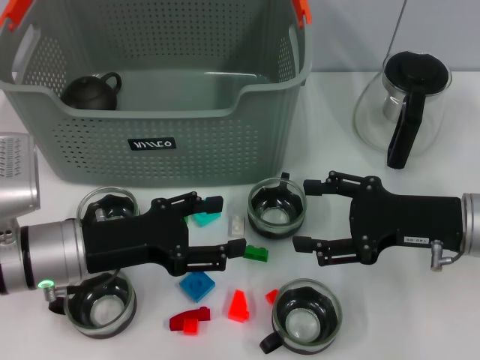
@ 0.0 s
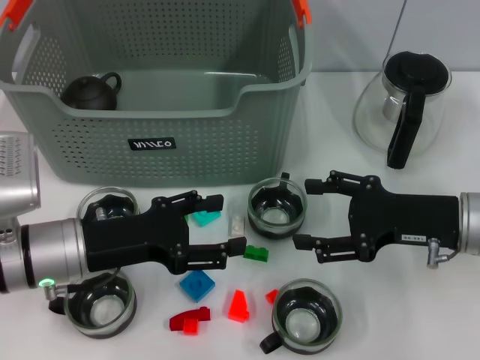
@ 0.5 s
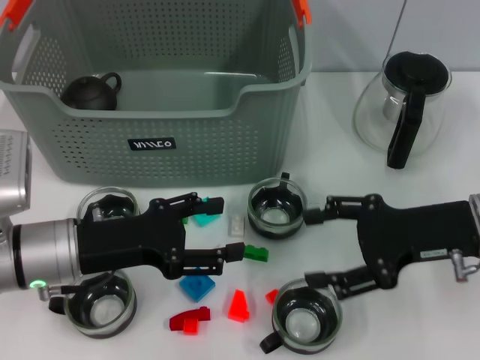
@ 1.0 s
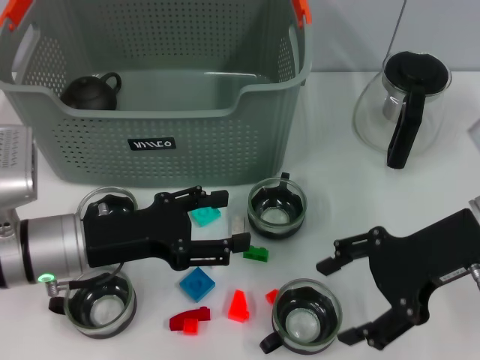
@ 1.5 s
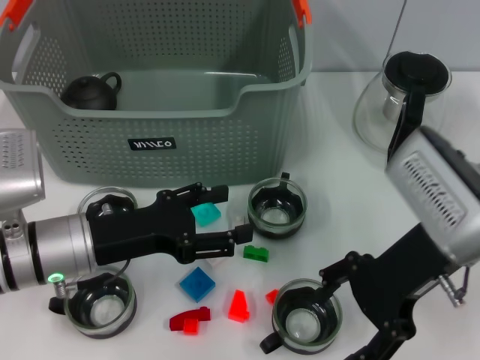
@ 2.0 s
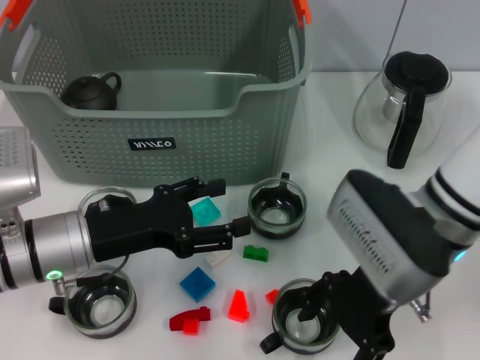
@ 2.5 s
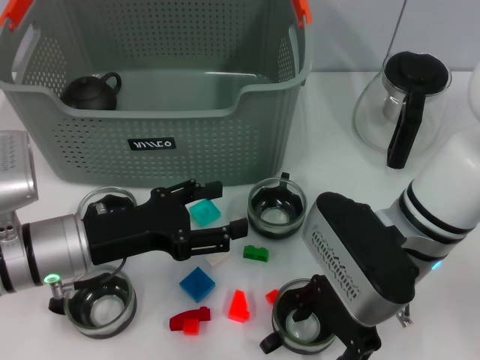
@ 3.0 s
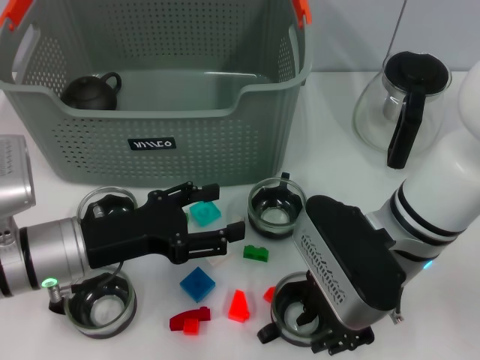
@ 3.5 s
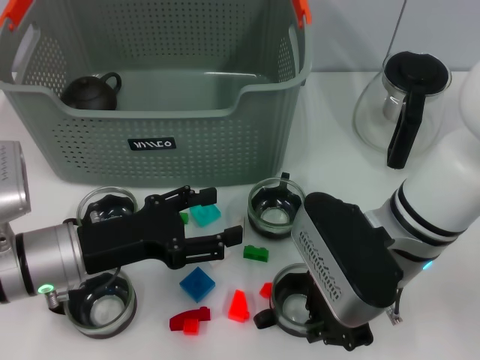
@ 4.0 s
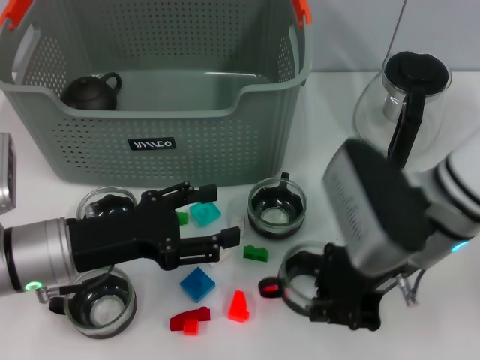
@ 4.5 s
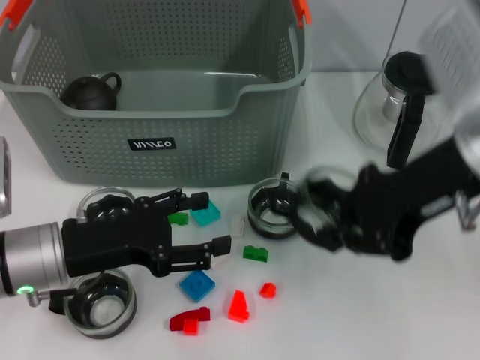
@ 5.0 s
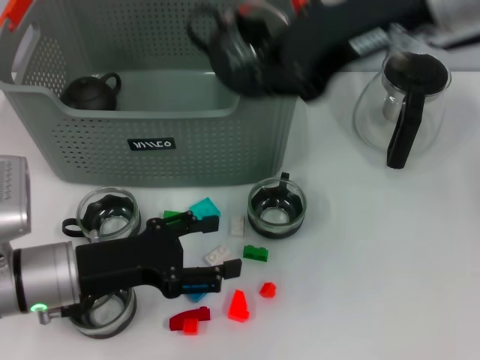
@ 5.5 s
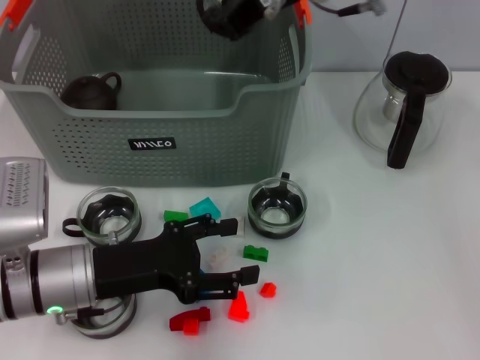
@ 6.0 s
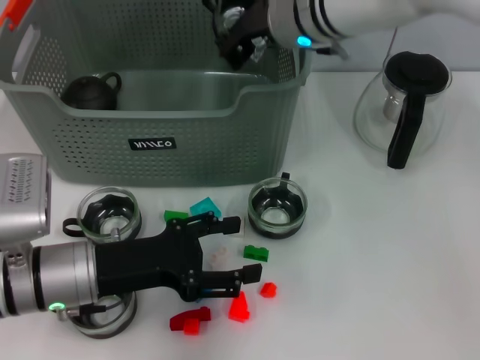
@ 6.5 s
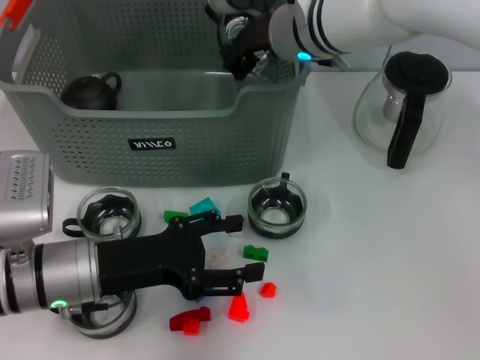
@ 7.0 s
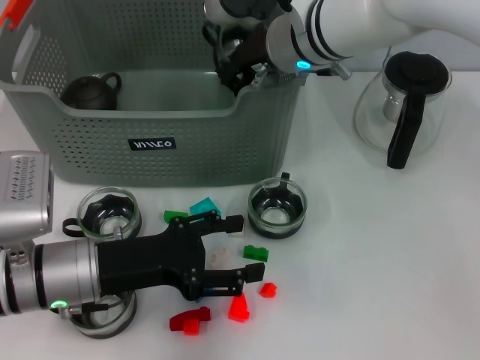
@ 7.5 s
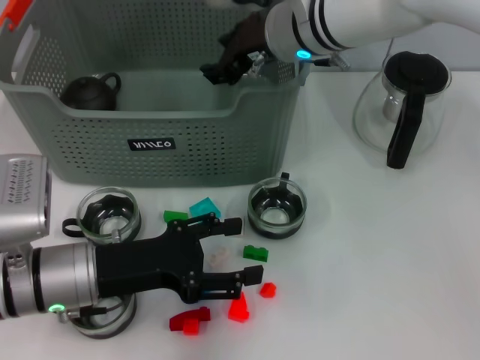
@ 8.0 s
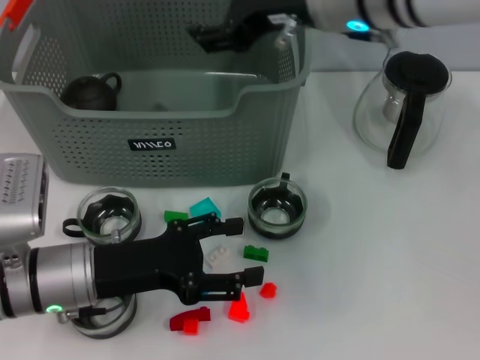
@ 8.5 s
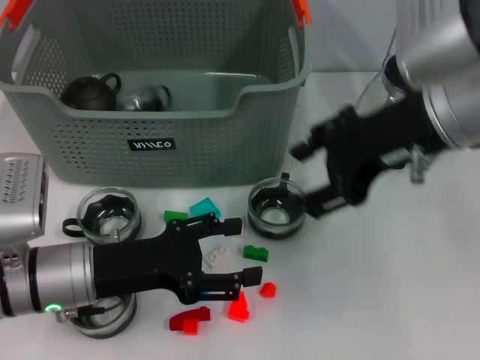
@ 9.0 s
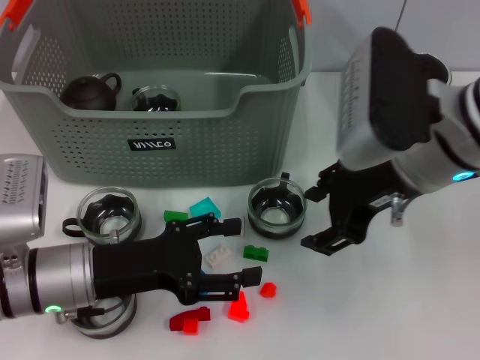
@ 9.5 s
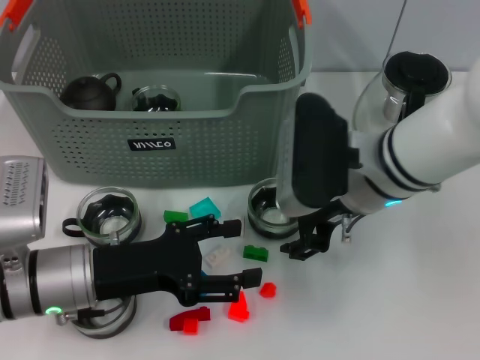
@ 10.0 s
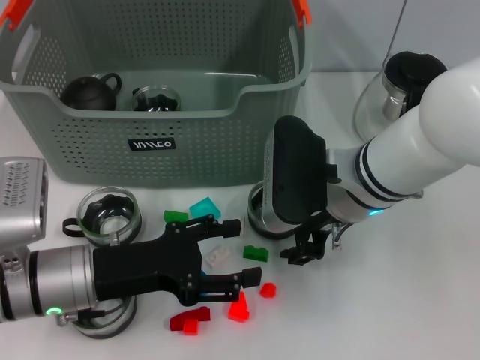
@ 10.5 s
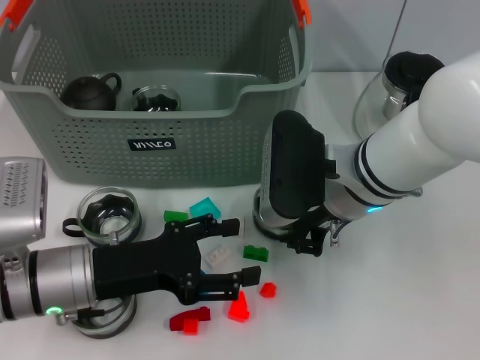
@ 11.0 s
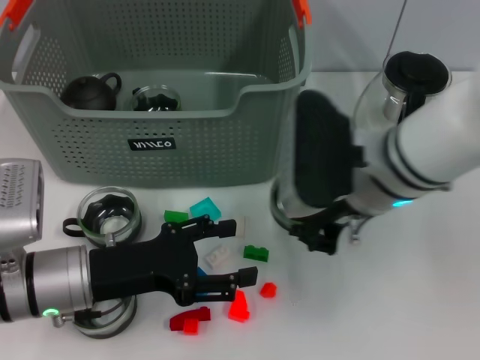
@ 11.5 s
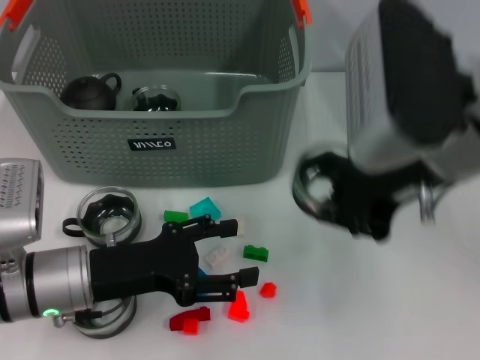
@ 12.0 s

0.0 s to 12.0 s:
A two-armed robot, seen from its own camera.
Task of the whole recording: pick up the teacup on the table and place it into the storage bin, pick up the block on the table and place it into the storage bin.
Step, 0.0 to 3.5 s: Grasp the cup with right gripper.
Step, 4.5 to 8.0 s: Place the cup in the storage box with right gripper.
Step, 8.5 to 11.0 s: Grasp the cup with right gripper.
0.0 to 2.0 s: The right gripper goes approximately 10 cm upward and to the left.
2.0 to 4.0 s: The right gripper travels to the left by some 5 cm, and closes.
4.0 to 6.0 s: The right gripper moves upward and forward, about 20 cm.
6.0 to 8.0 s: The right gripper goes roughly 5 cm downward, and opens its fingers.
8.0 to 10.0 s: The right gripper goes about 15 cm backward, to the right and downward, and opens its fingers.
10.0 to 12.0 s: The right gripper shifts about 10 cm upward, and closes.

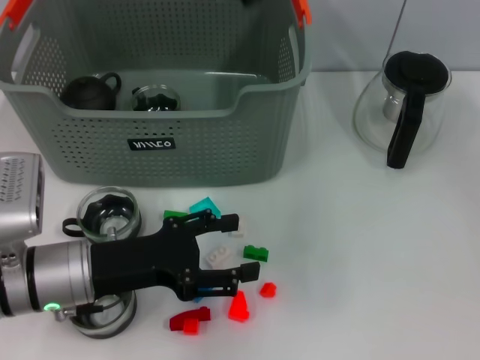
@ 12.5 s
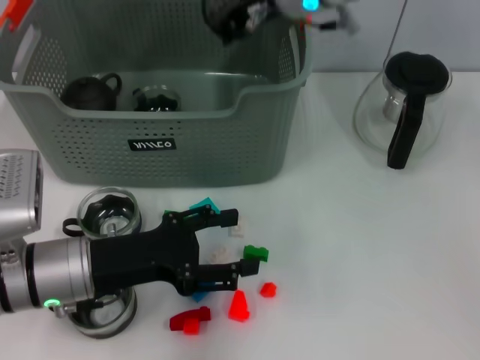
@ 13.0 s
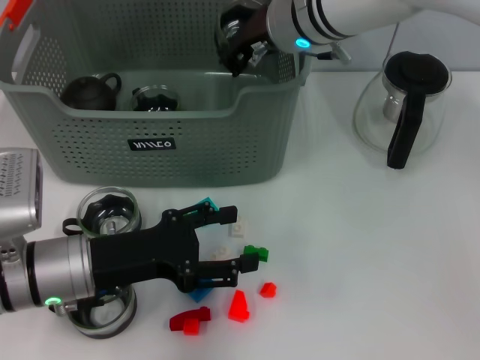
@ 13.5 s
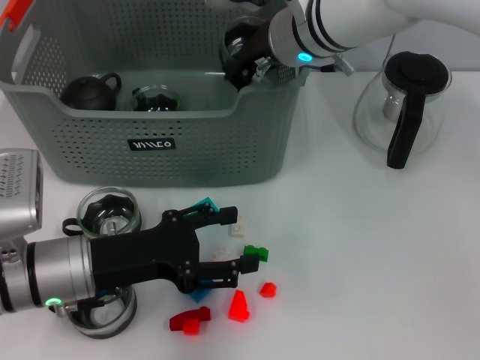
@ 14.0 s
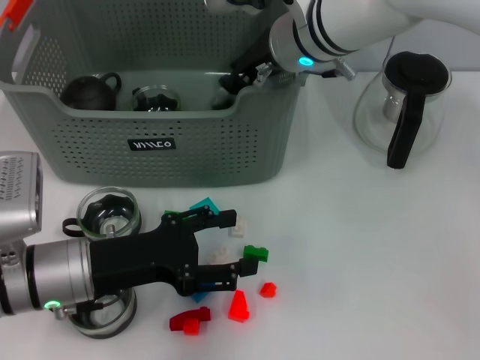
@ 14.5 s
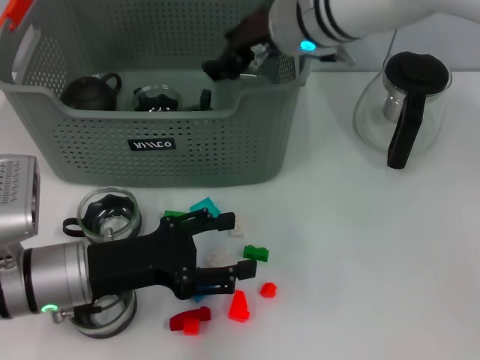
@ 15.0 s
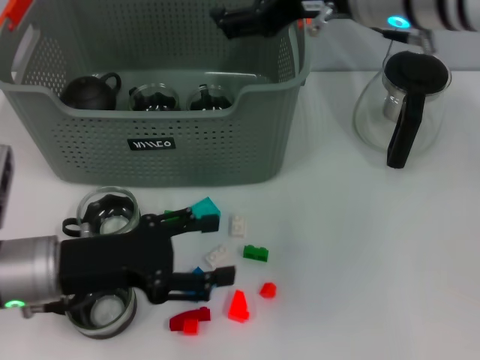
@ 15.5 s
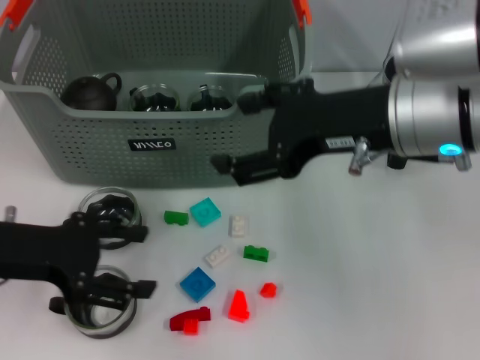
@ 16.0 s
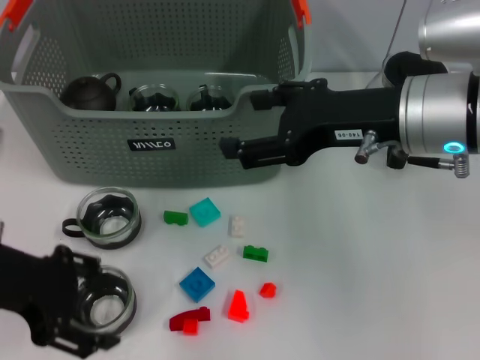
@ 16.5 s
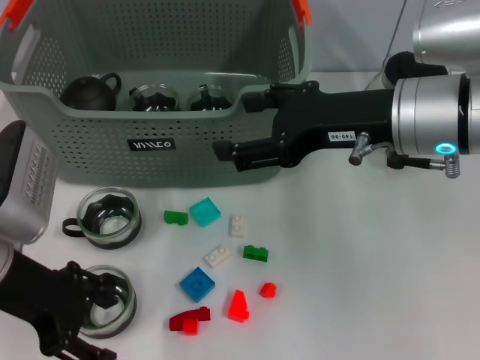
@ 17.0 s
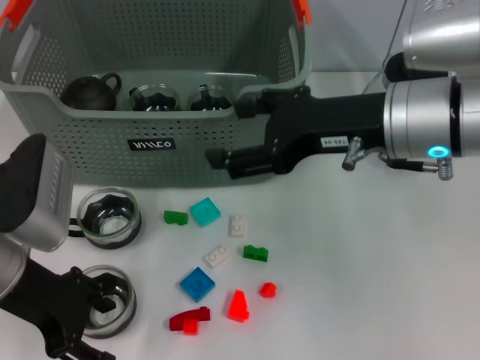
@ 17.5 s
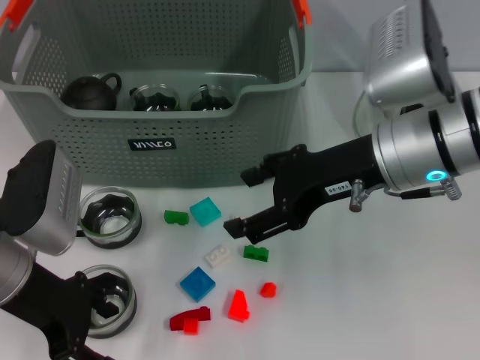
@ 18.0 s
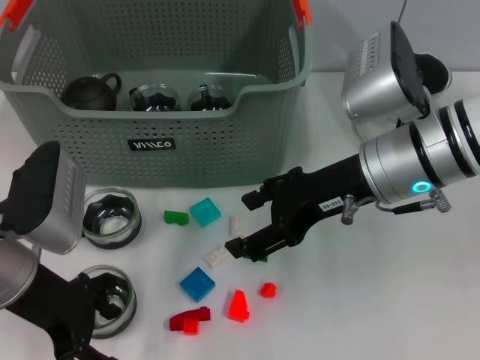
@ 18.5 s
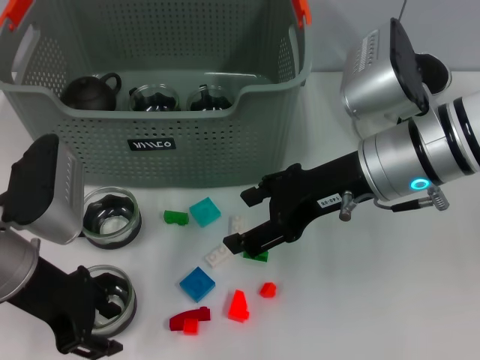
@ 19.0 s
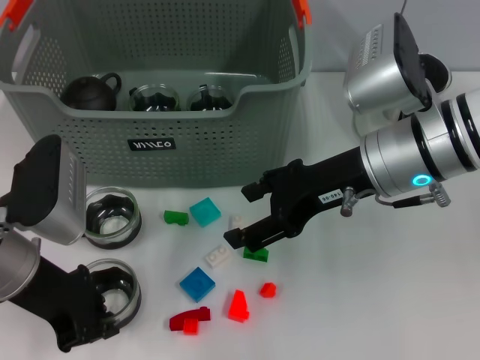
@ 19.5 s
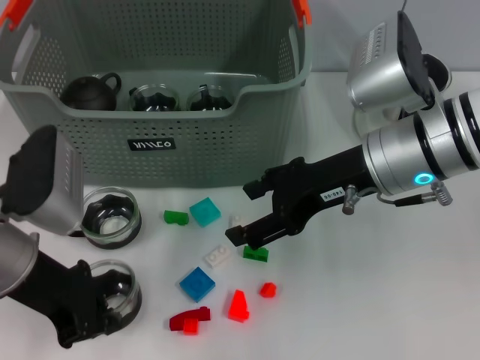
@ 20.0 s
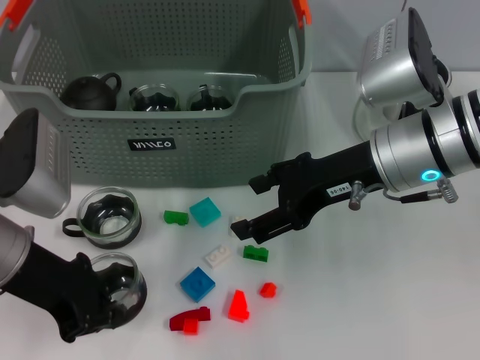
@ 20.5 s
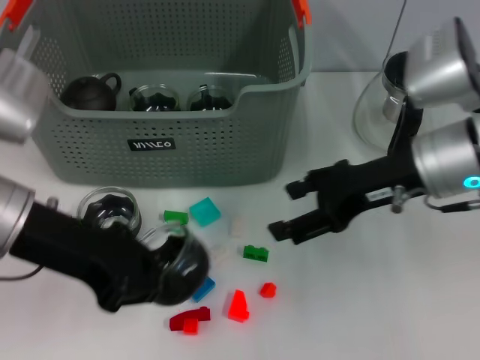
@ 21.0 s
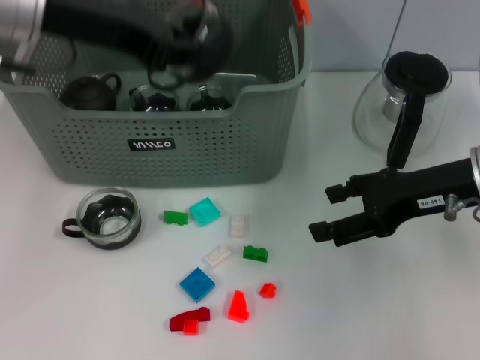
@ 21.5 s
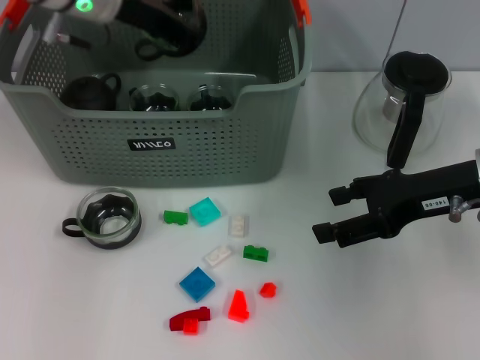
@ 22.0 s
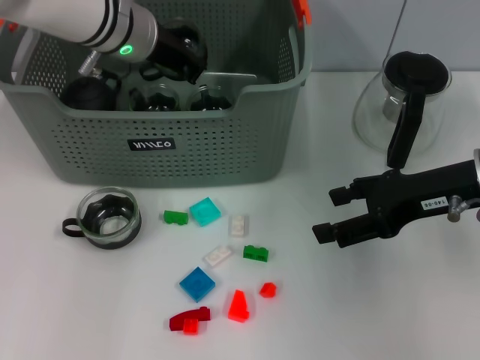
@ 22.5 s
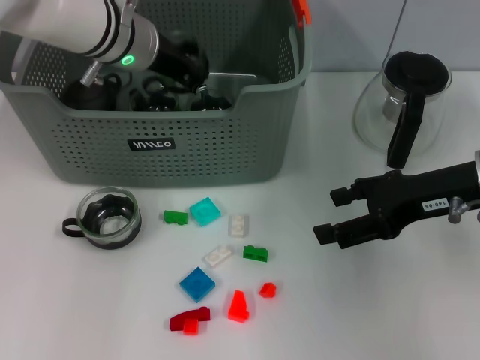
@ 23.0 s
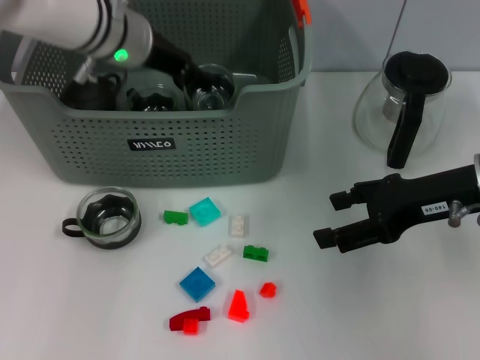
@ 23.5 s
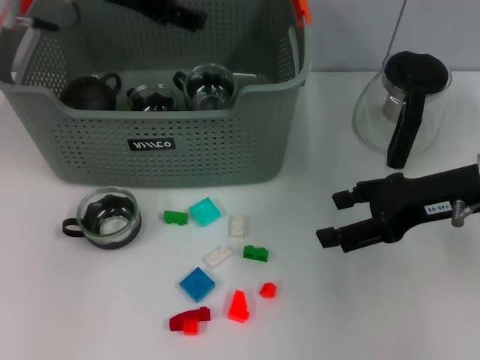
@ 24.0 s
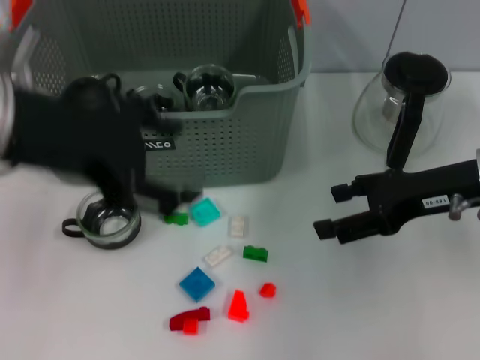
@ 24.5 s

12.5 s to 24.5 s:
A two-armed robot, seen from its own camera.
Task of the whole recording: pick up the teacup on the table and place it into the storage bin, pick up the block on the table and place it into the storage bin.
Step, 12.5 to 15.0 s: Place the cup in the storage box with right gripper.
Step, 15.5 to 19.5 s: Grasp the cup with right gripper.
Step, 20.0 to 23.5 s: Place the cup in the storage box with right gripper.
12.5 to 14.5 s: The right gripper heads downward and forward, covering some 20 cm.
14.5 to 16.5 s: The left gripper heads upward and to the left, covering roughly 10 cm; the right gripper shifts roughly 15 cm backward and to the right, and opens its fingers.
16.5 to 18.5 s: The left gripper moves some 5 cm.
18.5 to 20.5 s: The left gripper closes its fingers.
20.5 to 22.5 s: The left gripper heads forward and to the right, covering about 20 cm, while the right gripper moves to the right, about 10 cm.
22.5 to 24.5 s: The left gripper travels backward and upward by some 20 cm, and opens its fingers.

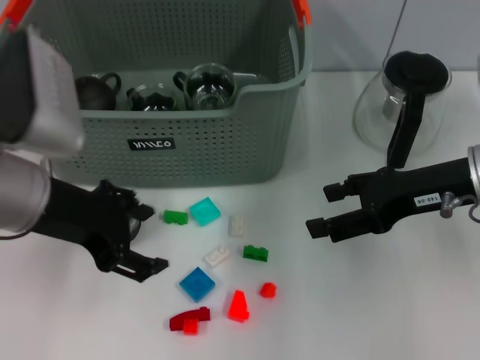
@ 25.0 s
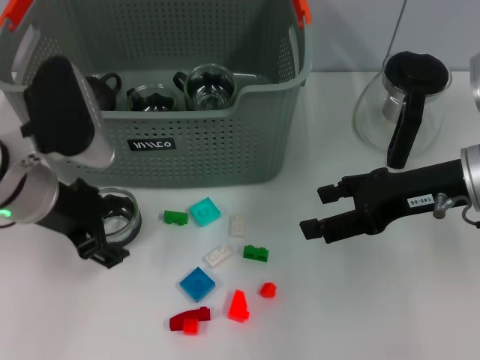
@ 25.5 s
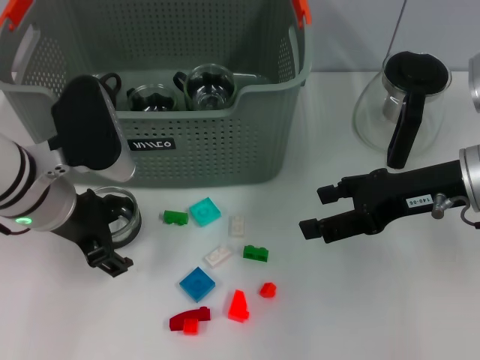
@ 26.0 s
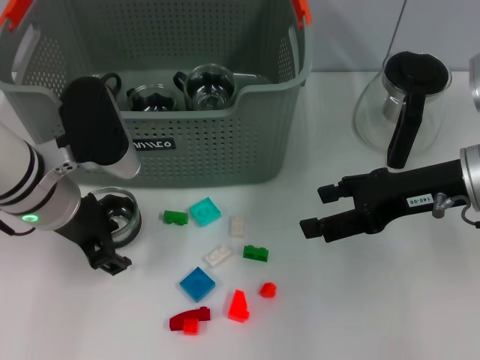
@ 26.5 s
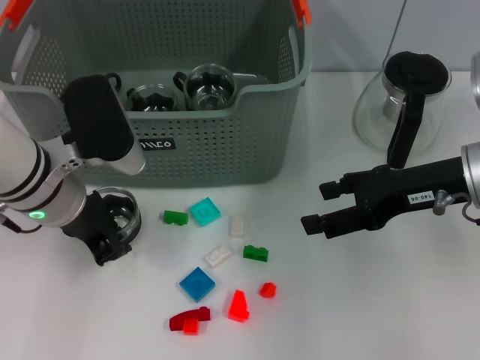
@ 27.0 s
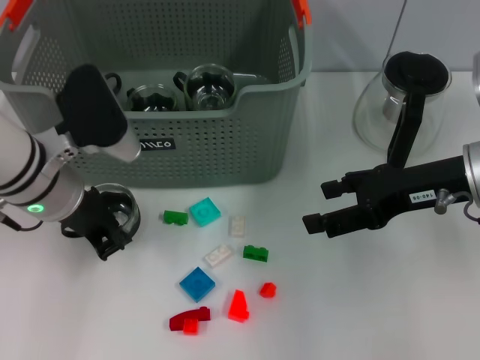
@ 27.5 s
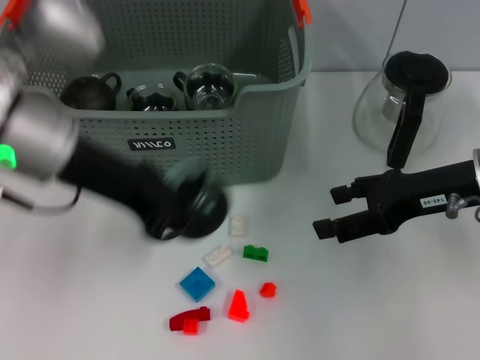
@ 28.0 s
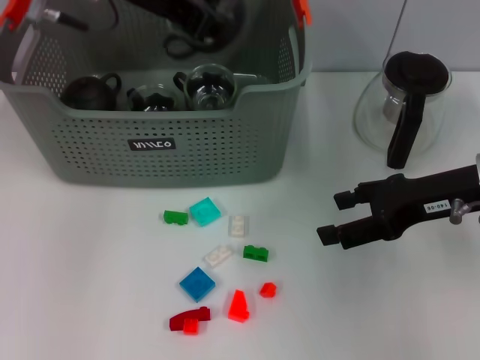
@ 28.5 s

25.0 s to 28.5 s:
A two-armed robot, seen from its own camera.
Task of the whole recording: pick up the teacup on the table and place it into the storage bin, pick up the block on the table and place it into the storage bin.
25.0 to 27.0 s: The left gripper heads downward, covering some 5 cm, and closes.
27.0 to 28.5 s: The left gripper heads upward and forward, covering roughly 20 cm, and closes.
